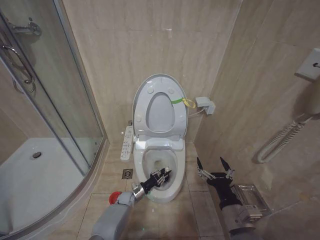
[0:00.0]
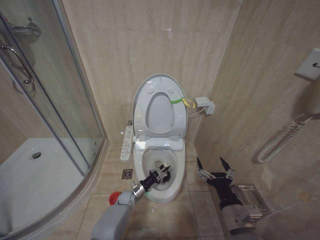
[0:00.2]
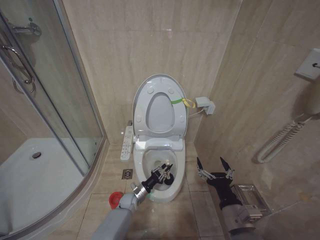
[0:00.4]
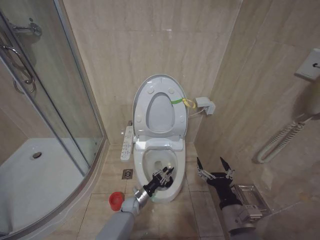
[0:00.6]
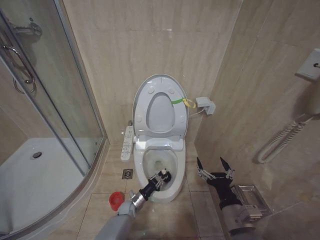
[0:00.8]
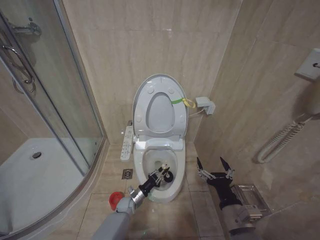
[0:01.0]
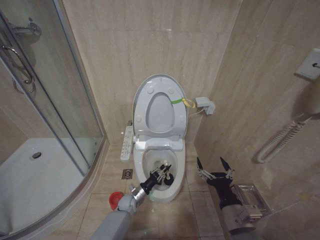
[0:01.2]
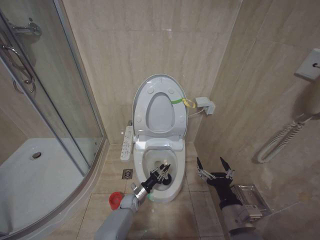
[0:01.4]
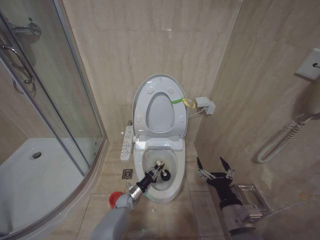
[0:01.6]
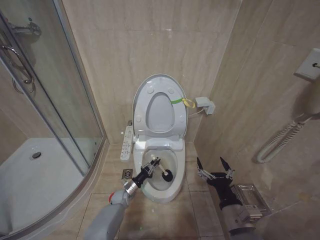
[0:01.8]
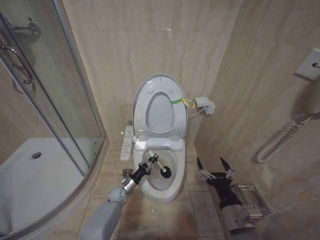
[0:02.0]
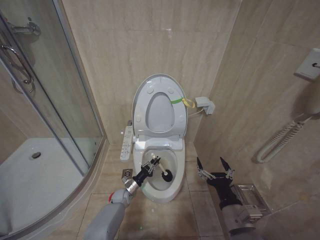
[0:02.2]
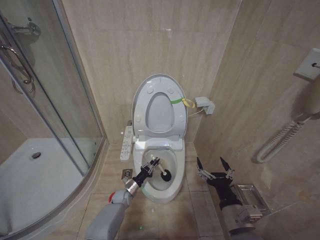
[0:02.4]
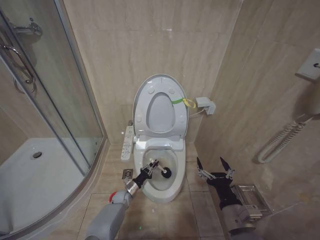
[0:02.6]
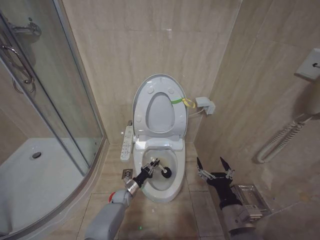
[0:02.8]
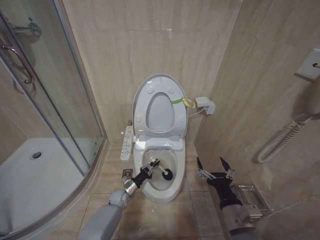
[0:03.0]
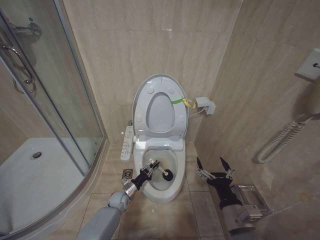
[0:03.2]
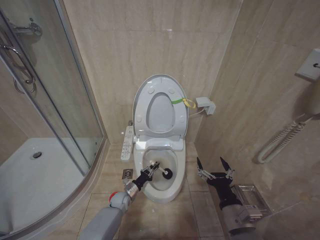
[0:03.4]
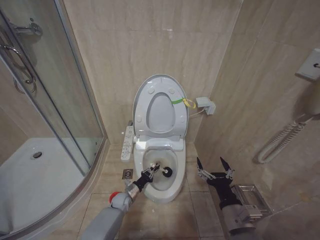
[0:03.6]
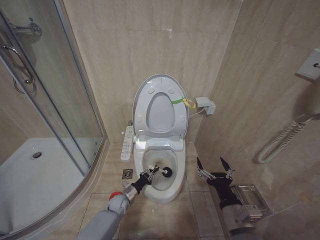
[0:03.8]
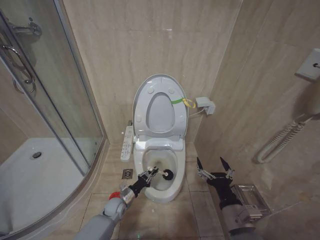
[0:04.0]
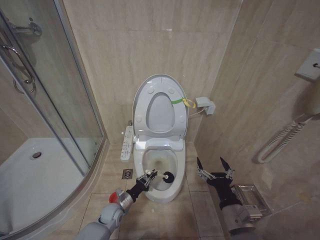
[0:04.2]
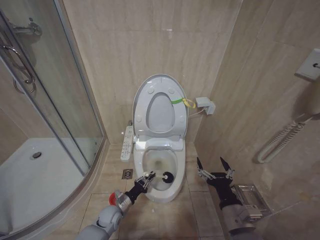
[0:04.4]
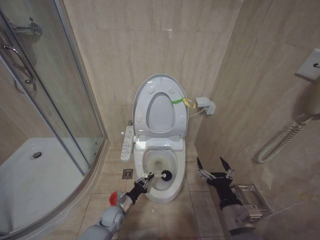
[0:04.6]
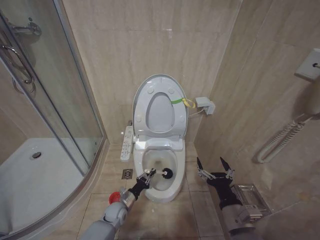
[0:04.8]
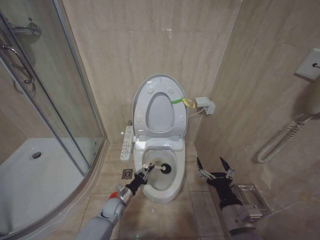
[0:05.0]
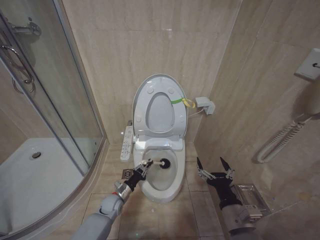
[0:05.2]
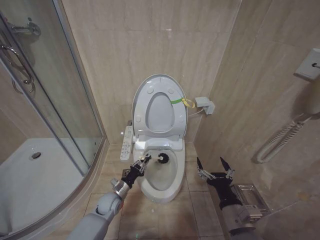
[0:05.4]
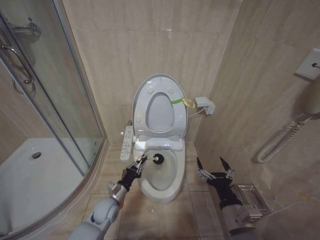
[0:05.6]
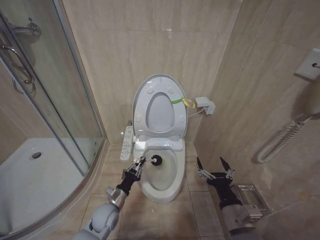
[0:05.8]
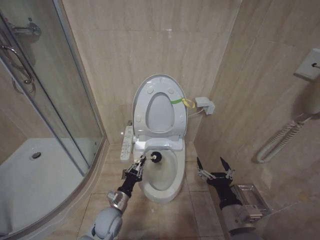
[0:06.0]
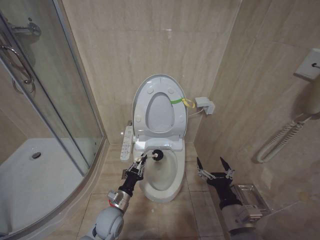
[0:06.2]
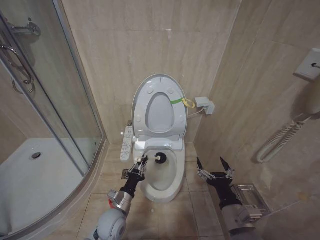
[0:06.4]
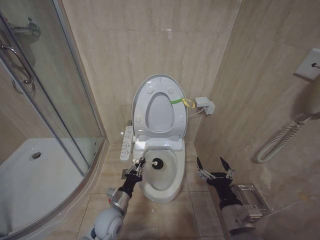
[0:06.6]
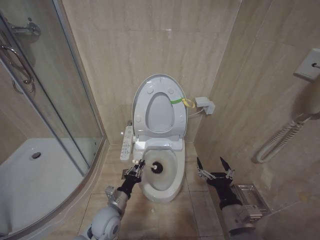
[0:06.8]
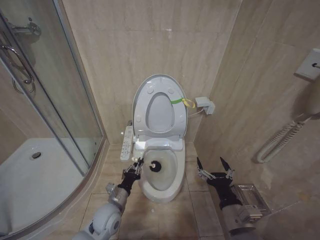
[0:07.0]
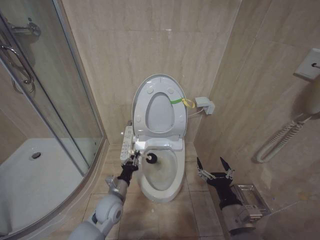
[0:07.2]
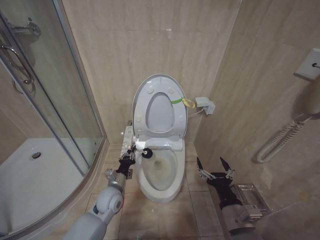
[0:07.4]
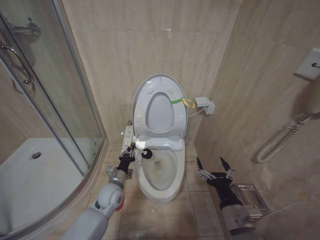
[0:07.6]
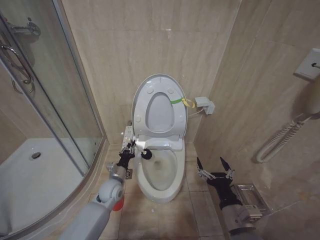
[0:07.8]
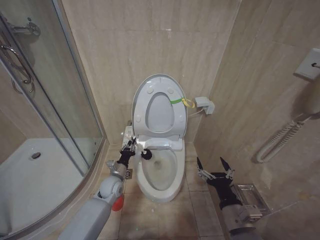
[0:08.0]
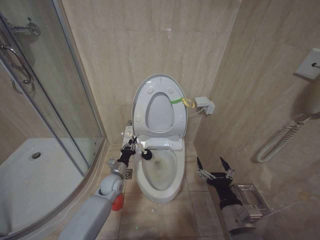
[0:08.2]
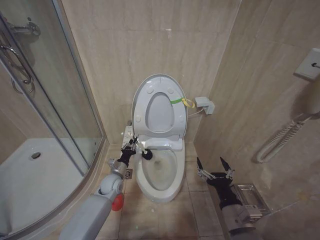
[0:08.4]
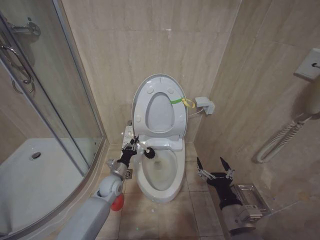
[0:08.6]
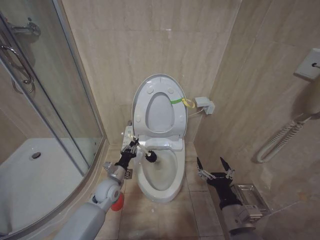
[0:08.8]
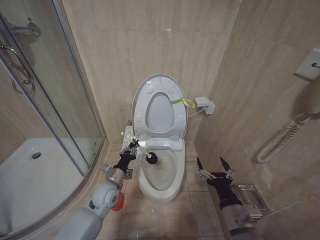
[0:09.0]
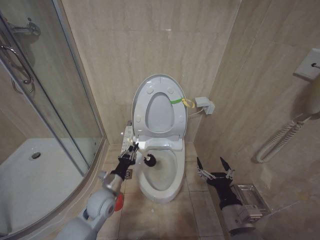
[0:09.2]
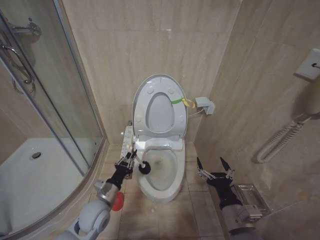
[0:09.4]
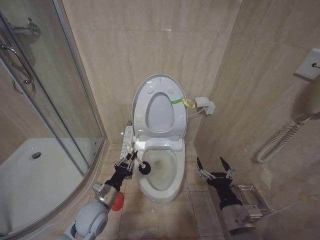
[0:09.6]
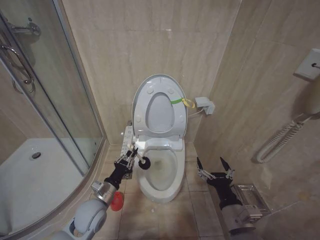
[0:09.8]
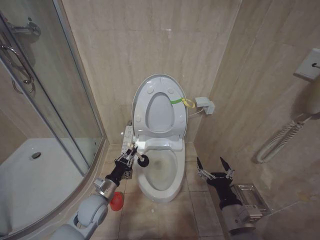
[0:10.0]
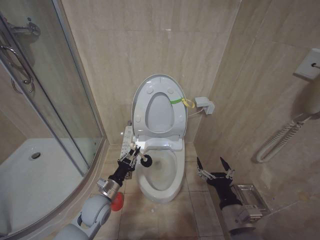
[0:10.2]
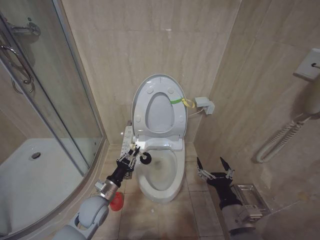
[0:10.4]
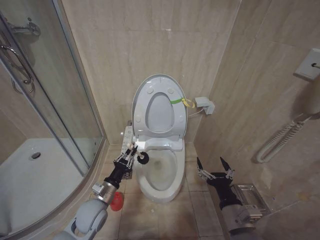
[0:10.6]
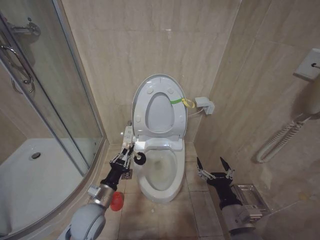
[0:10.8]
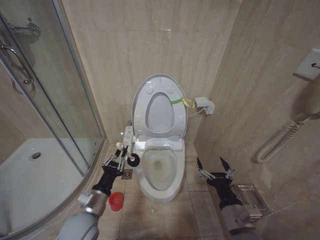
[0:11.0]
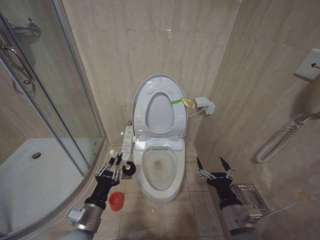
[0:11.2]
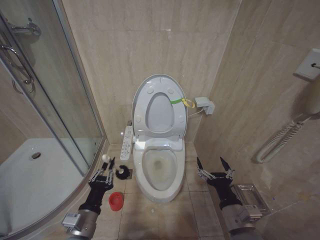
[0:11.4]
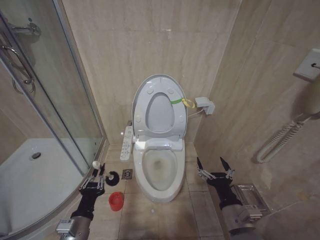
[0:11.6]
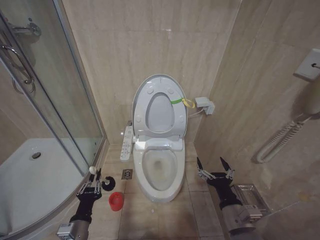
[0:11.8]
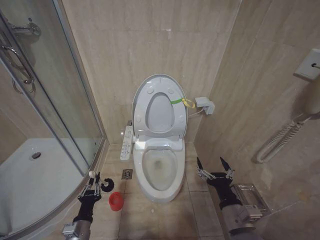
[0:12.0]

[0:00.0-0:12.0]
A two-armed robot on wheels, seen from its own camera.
Task of the whole recording: Open the toilet lid, clean the toilet bowl with a toilet brush, close the toilet lid, and flush.
0:01.6 to 0:03.0: The left gripper ends up about 5 cm from where it was.
0:03.0 to 0:04.4: The left gripper moves backward, some 10 cm.
0:04.4 to 0:06.0: The left gripper travels upward by some 10 cm.
0:06.0 to 0:07.6: The left gripper travels forward and upward by some 10 cm.
0:09.0 to 0:10.4: The left gripper heads backward, covering about 5 cm.
0:10.4 to 0:12.0: The left gripper is displaced backward by some 15 cm.

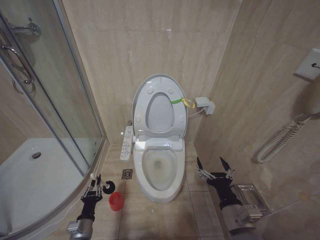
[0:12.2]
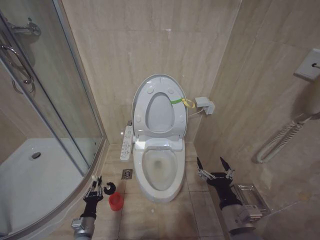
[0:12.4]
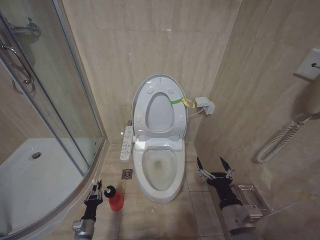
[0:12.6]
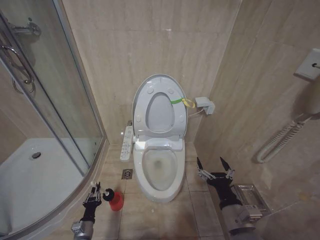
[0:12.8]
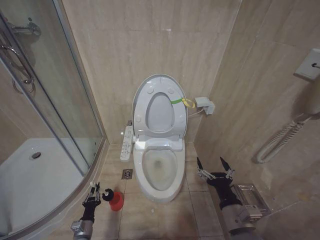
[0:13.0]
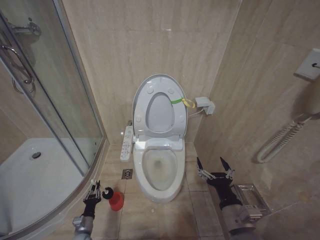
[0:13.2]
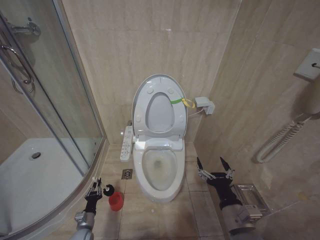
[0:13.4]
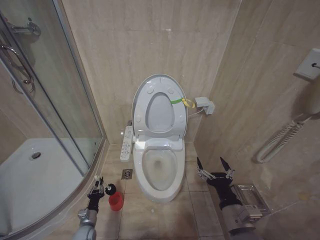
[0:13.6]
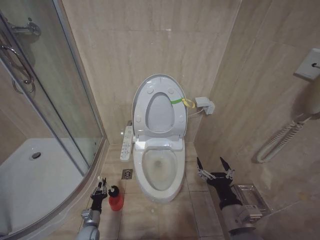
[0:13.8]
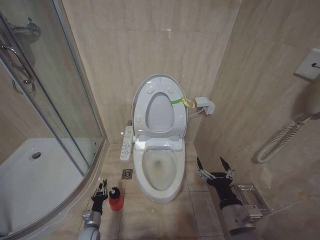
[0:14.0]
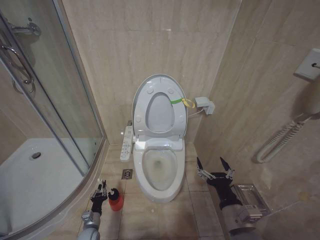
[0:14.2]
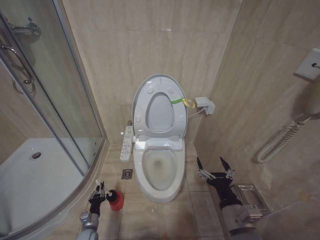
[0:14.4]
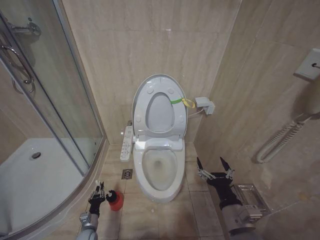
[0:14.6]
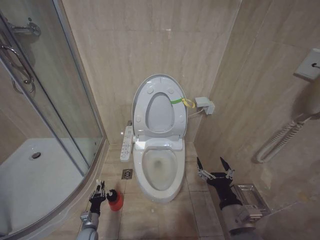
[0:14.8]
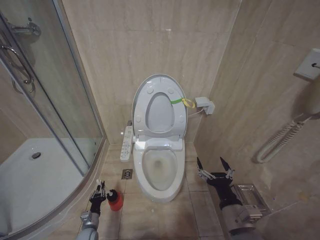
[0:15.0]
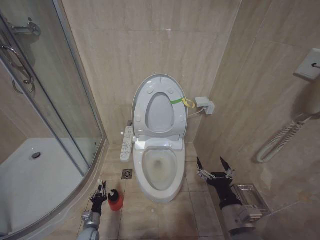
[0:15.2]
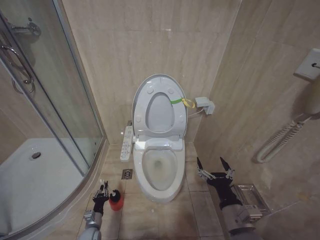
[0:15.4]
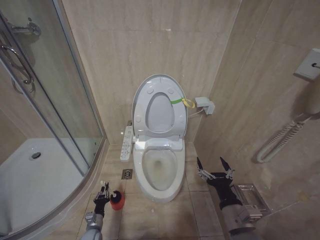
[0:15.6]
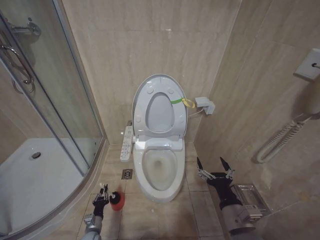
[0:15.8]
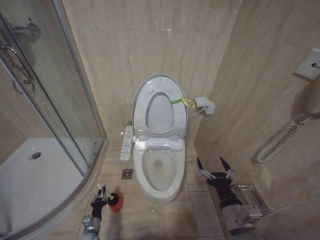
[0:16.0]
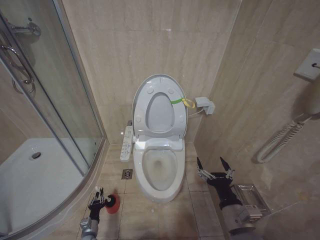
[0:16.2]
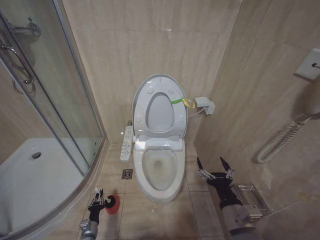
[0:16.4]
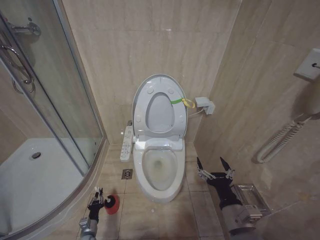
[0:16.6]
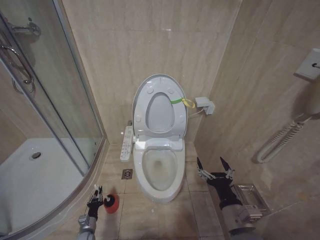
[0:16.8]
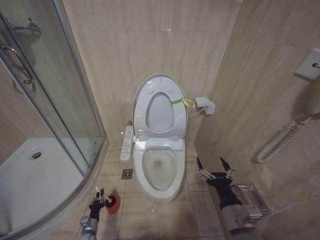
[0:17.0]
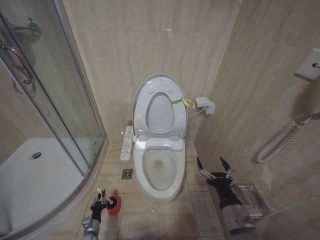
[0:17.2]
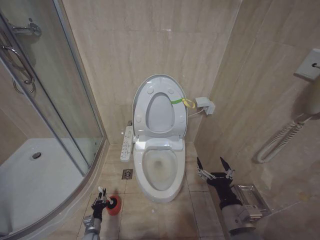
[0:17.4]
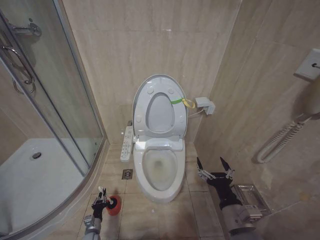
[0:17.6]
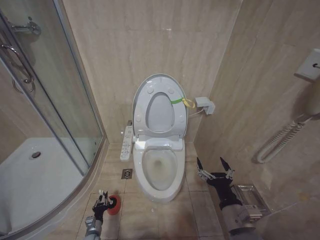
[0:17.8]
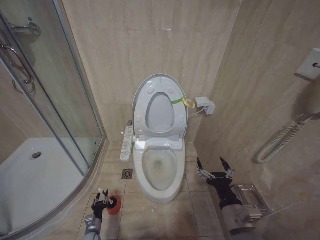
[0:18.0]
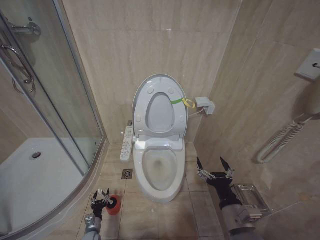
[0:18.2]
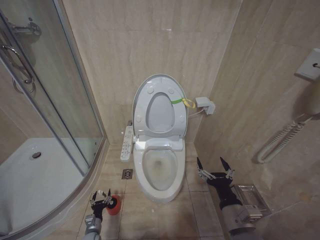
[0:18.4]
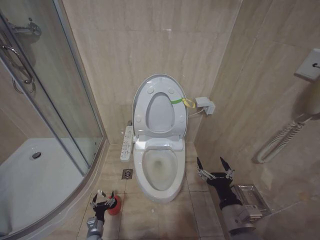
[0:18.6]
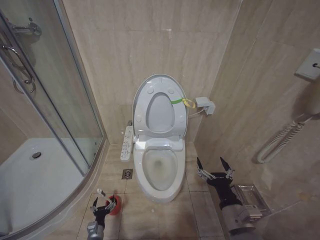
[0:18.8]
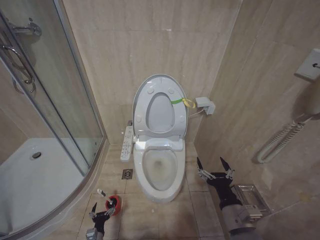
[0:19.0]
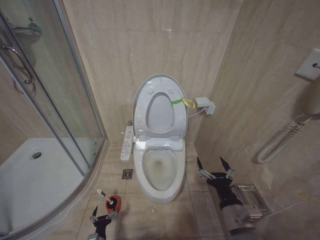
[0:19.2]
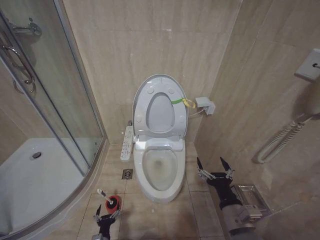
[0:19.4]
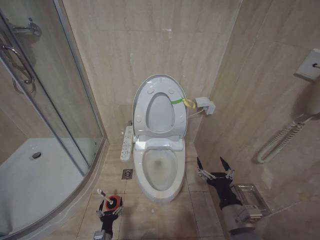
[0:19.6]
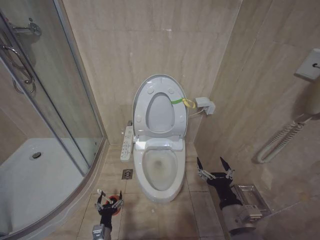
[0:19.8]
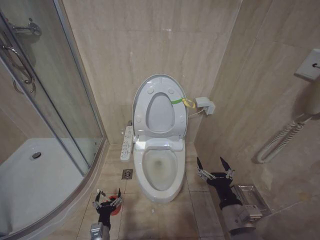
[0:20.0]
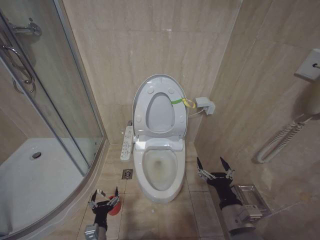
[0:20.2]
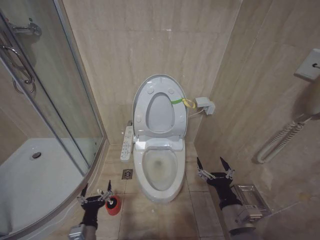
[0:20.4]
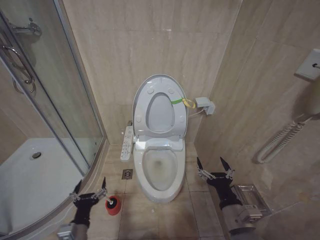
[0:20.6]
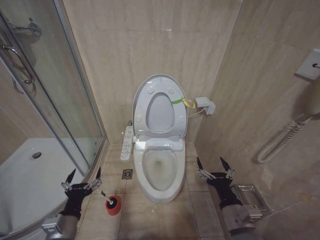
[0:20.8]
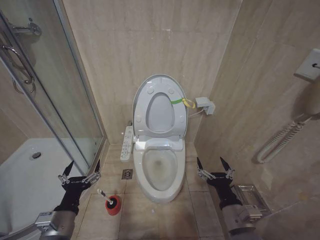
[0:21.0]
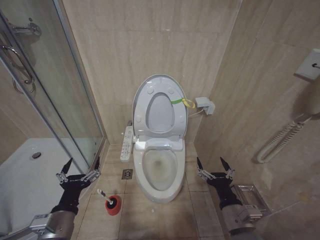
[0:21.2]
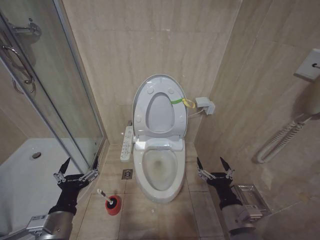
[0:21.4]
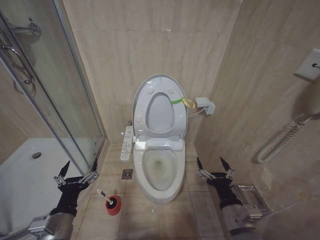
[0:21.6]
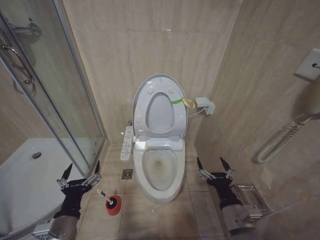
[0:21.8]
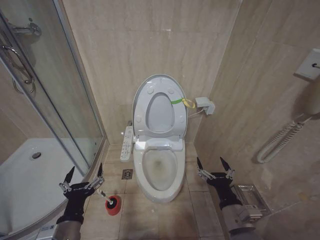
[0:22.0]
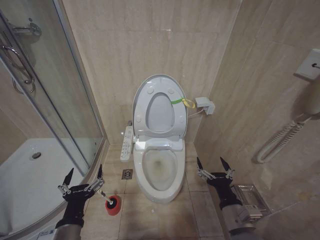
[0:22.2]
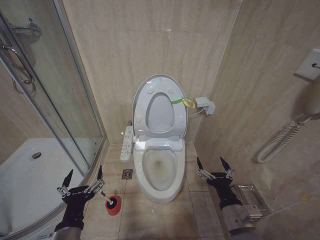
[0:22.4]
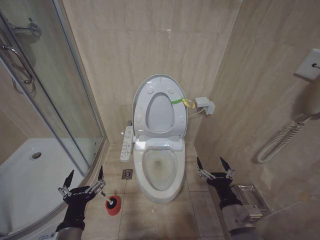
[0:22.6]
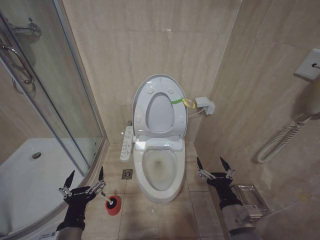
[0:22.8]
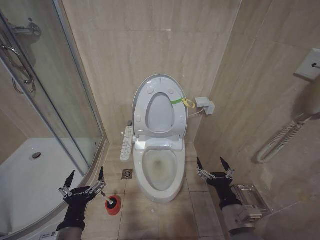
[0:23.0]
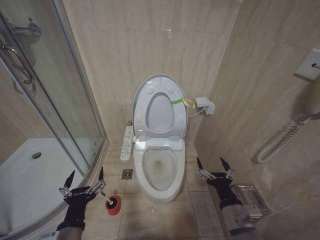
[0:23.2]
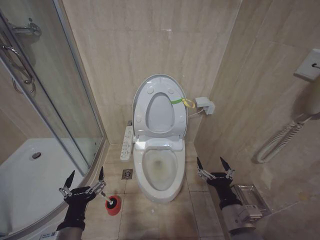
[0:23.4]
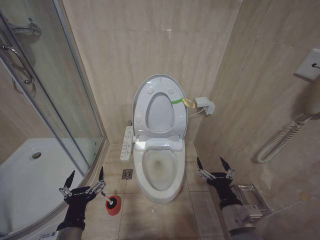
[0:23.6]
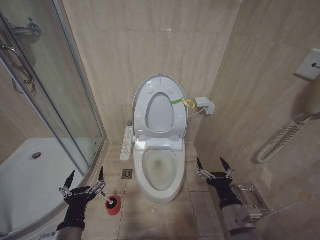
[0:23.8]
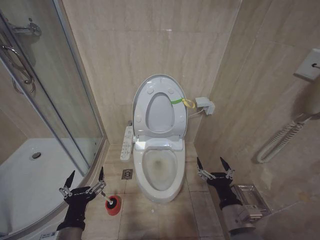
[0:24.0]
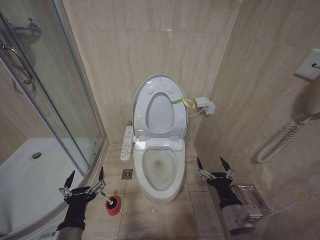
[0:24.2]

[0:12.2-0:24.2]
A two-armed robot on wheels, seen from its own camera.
Task of the whole recording: Open the toilet lid, clean the toilet bowl with a toilet brush, close the toilet lid, and flush.
0:12.2 to 0:13.8: The left gripper heads downward and forward, covering about 15 cm.
0:15.2 to 0:16.6: The grippers make only small movements.
0:18.2 to 0:19.8: The left gripper is displaced upward, to the right and backward by some 15 cm, and opens its fingers.
0:19.8 to 0:21.2: The left gripper moves upward, about 30 cm.
0:21.2 to 0:22.6: The left gripper ends up about 5 cm from where it was.
0:22.6 to 0:24.2: The two grippers keep their place.
